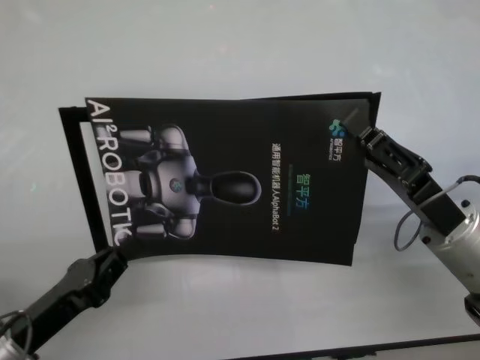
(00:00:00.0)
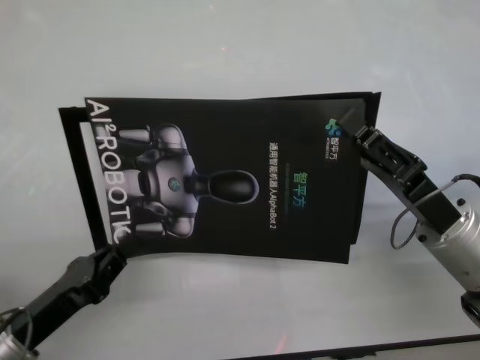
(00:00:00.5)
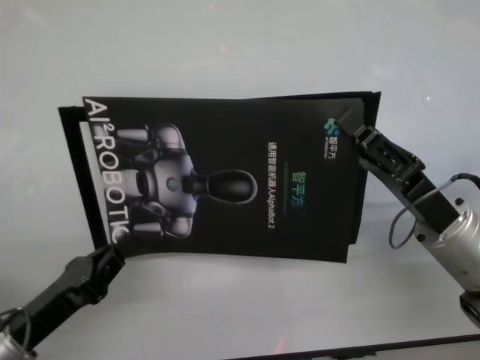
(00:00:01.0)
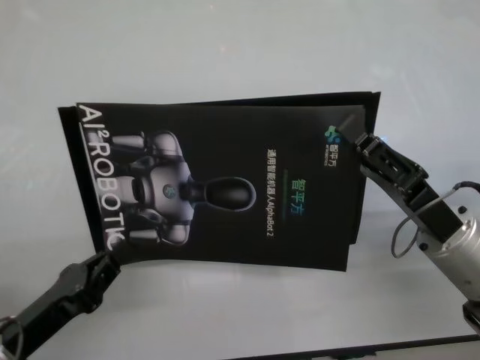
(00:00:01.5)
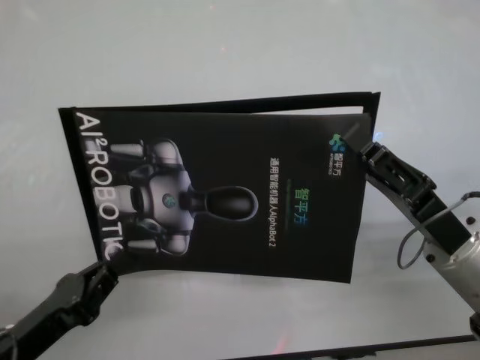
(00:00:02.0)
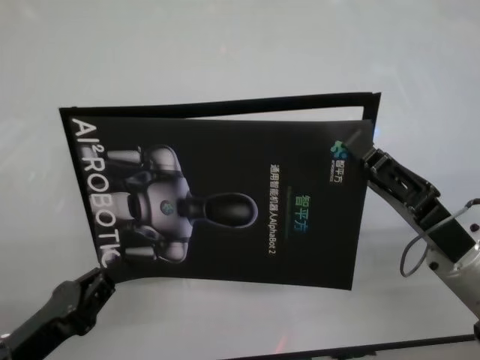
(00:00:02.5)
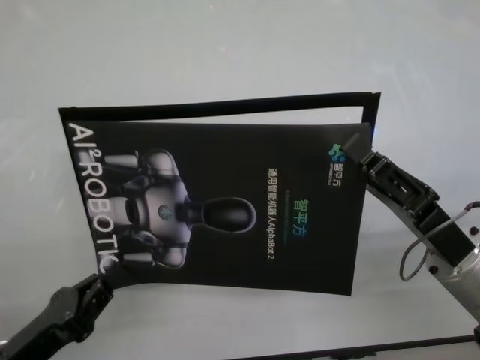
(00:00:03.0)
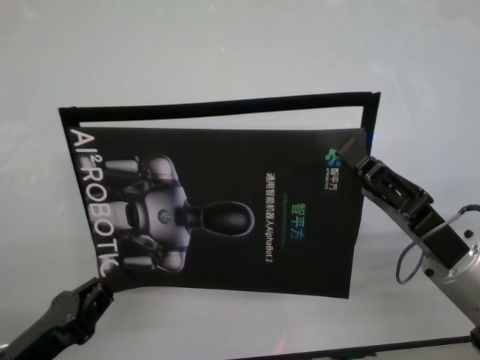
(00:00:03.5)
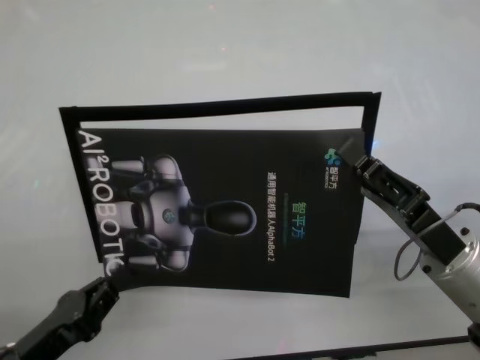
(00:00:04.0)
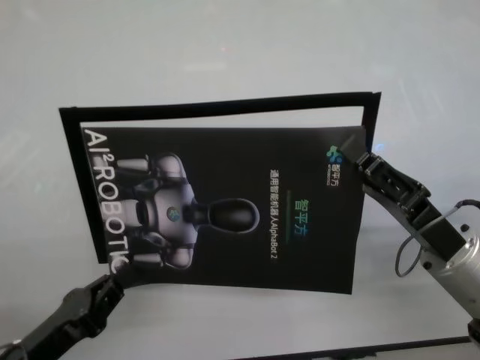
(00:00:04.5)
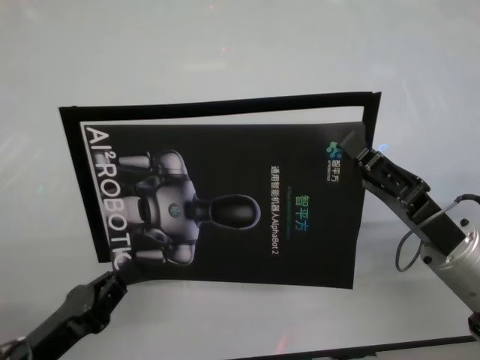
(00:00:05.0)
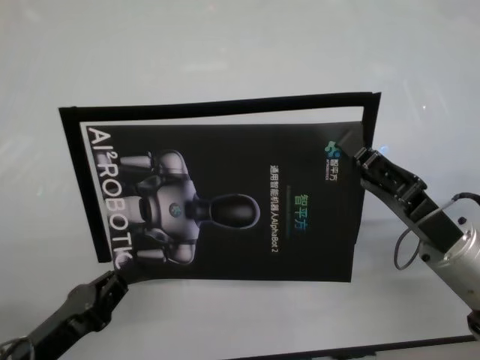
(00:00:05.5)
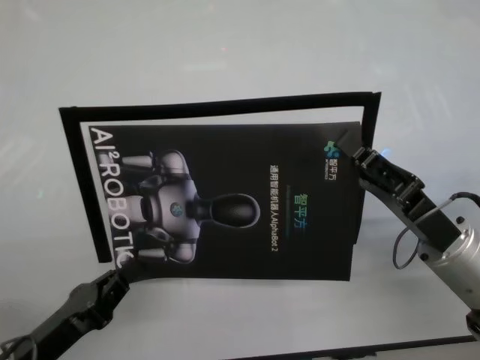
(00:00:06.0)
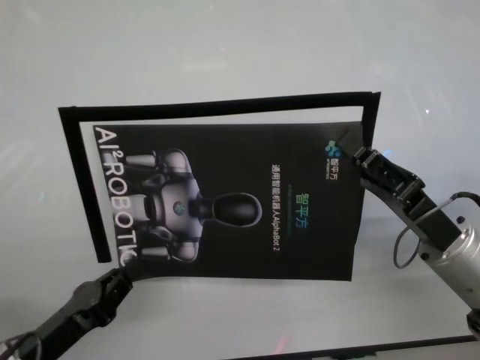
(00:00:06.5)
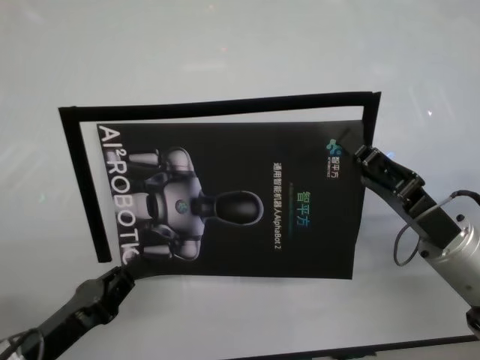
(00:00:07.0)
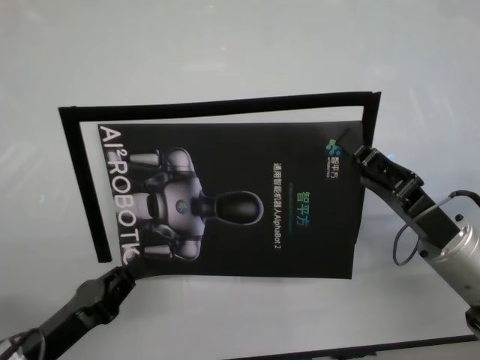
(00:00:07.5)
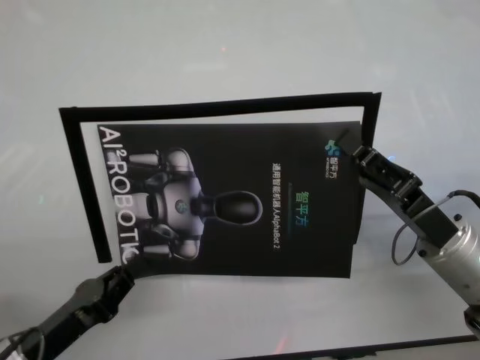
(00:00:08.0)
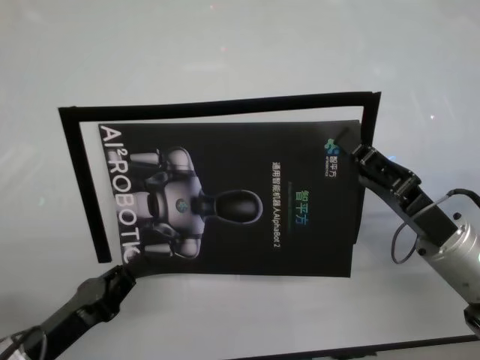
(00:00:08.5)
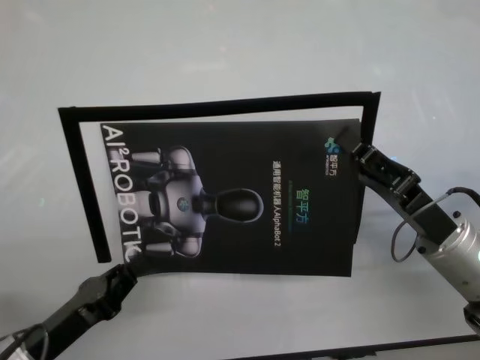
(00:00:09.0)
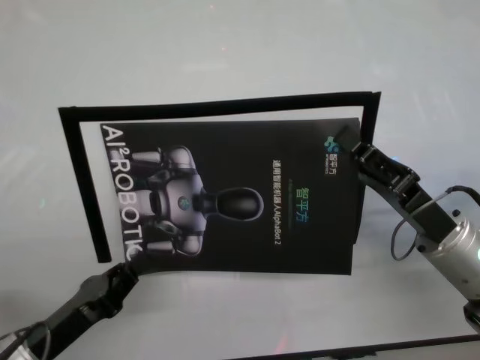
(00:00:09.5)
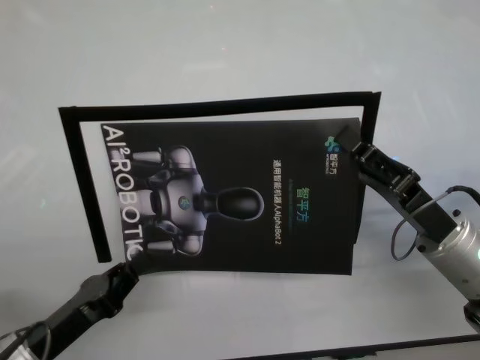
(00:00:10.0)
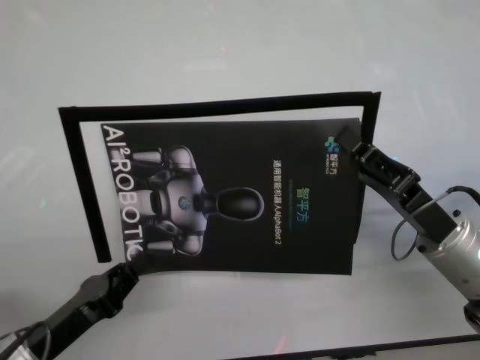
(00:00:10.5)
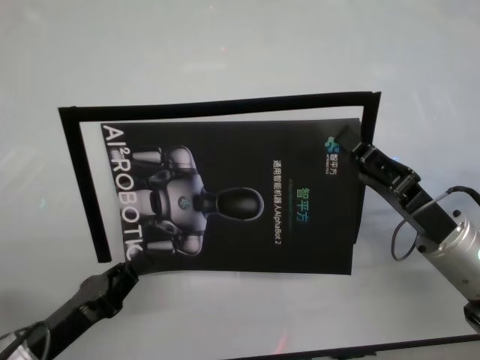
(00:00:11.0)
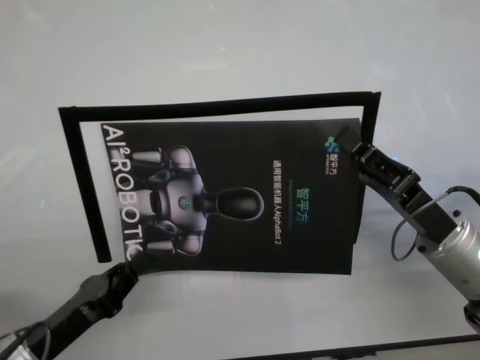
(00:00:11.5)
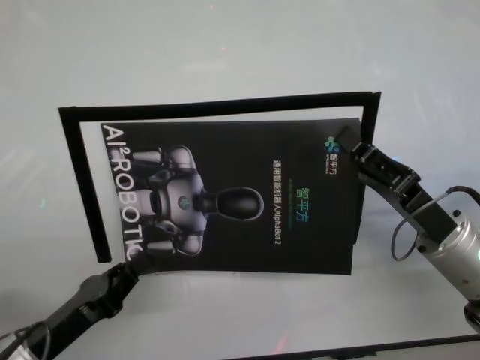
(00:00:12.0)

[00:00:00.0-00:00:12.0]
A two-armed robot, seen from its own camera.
Task of the whole recording: stick the poster on the table by hand.
Step, 00:00:00.0 to 00:00:07.0: Stick the advertisement in the top-right corner area with both grippers.
